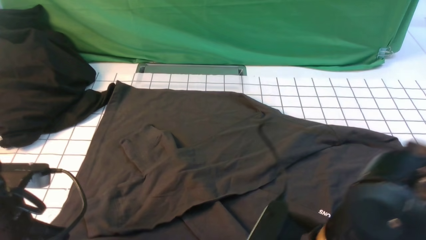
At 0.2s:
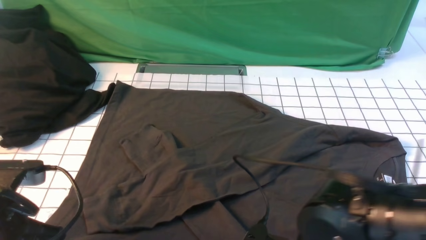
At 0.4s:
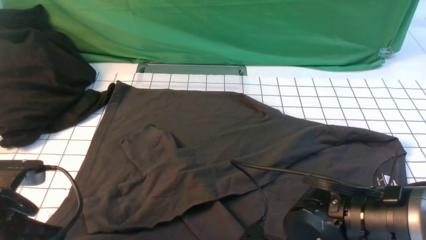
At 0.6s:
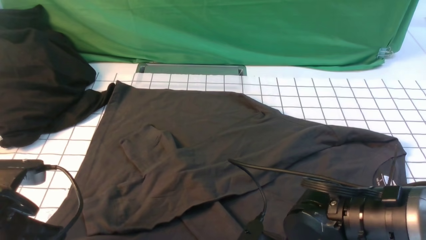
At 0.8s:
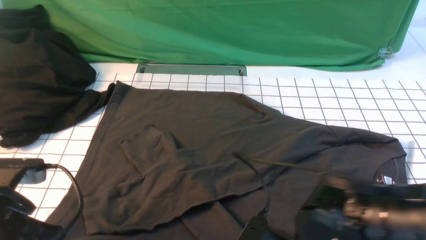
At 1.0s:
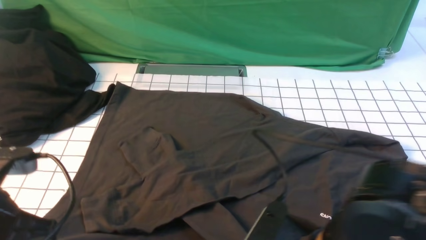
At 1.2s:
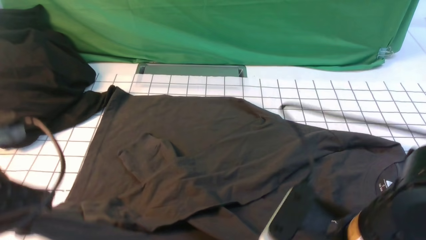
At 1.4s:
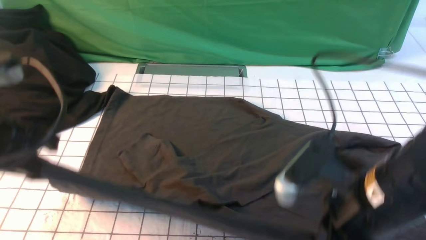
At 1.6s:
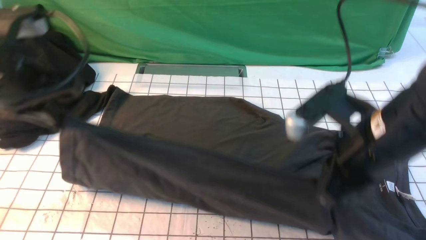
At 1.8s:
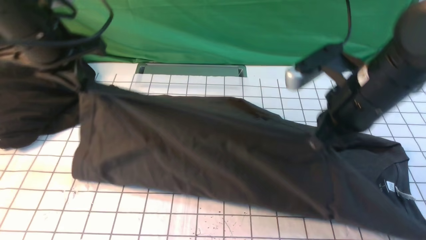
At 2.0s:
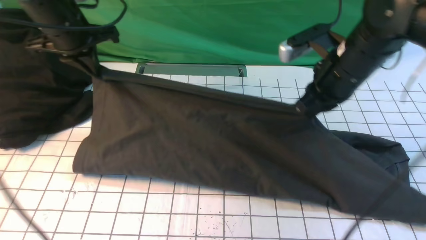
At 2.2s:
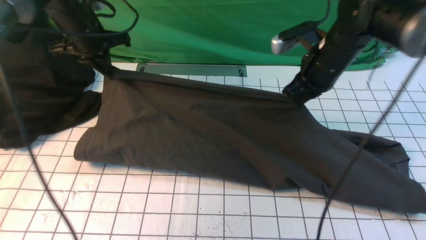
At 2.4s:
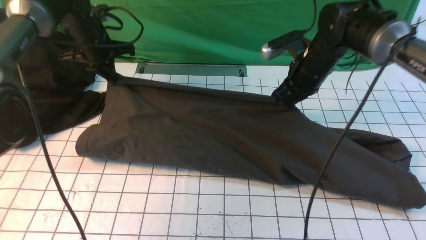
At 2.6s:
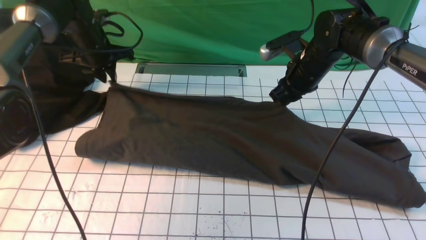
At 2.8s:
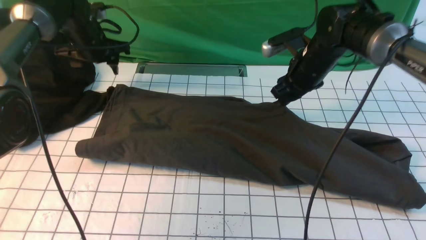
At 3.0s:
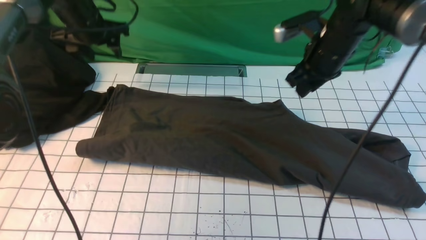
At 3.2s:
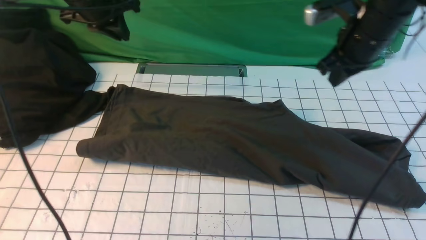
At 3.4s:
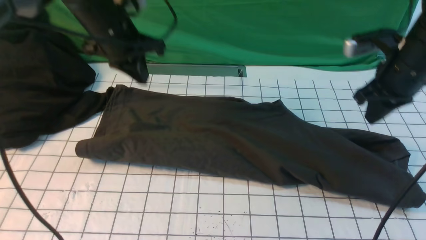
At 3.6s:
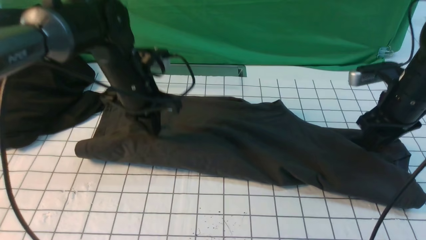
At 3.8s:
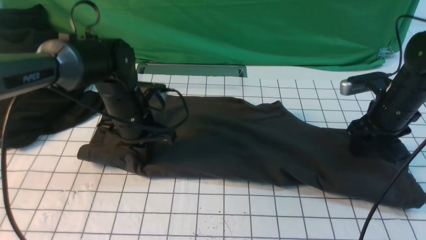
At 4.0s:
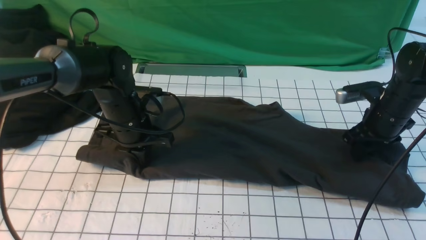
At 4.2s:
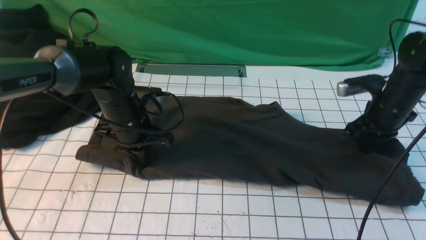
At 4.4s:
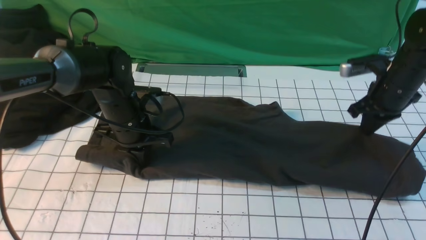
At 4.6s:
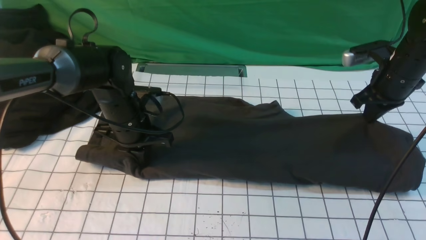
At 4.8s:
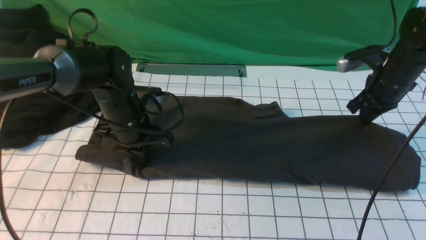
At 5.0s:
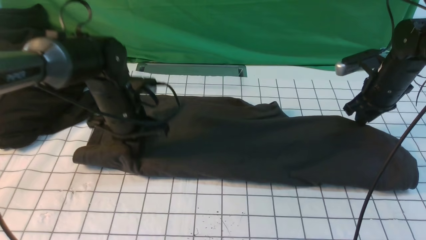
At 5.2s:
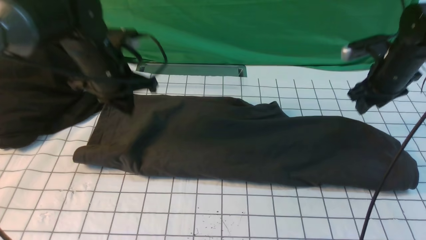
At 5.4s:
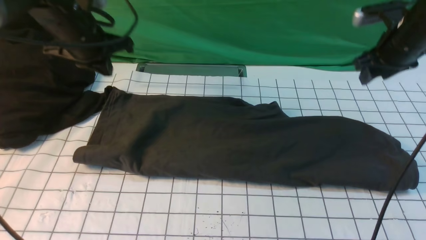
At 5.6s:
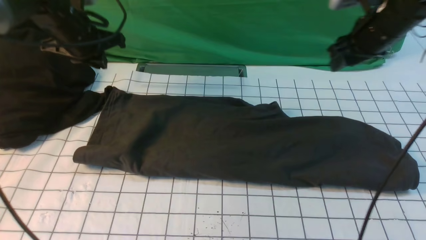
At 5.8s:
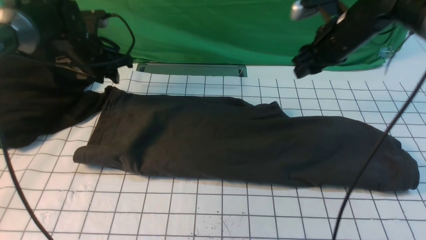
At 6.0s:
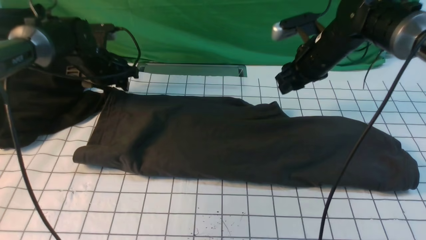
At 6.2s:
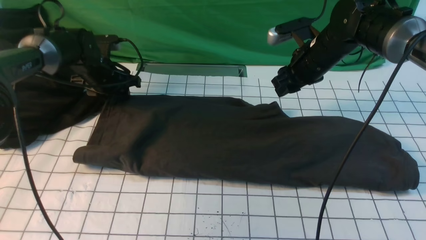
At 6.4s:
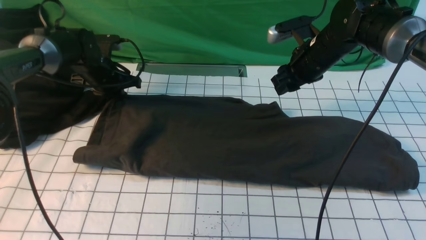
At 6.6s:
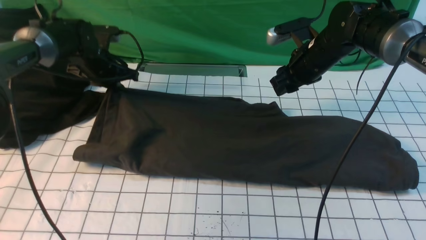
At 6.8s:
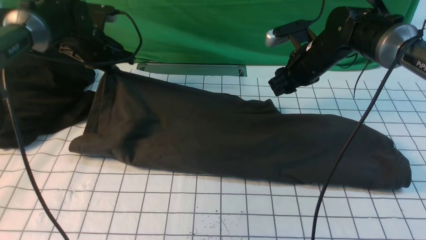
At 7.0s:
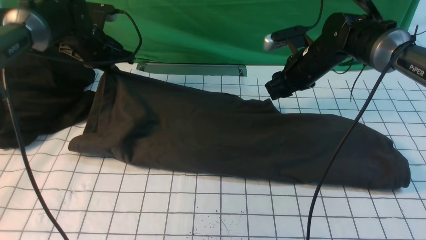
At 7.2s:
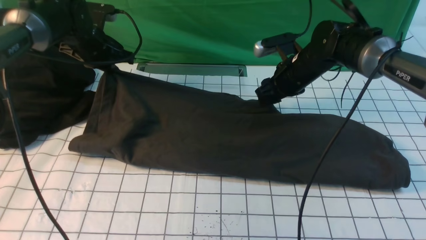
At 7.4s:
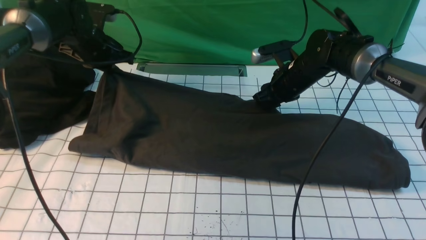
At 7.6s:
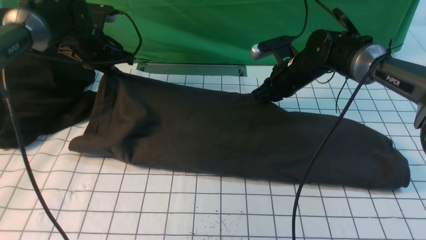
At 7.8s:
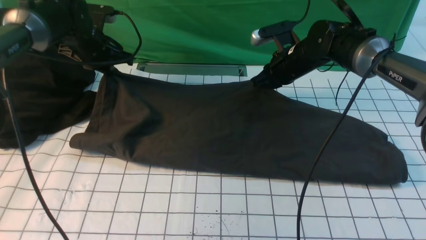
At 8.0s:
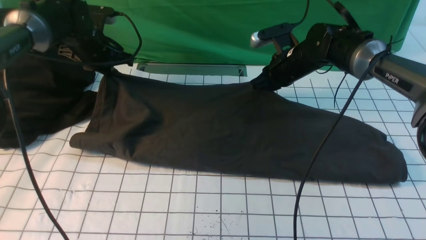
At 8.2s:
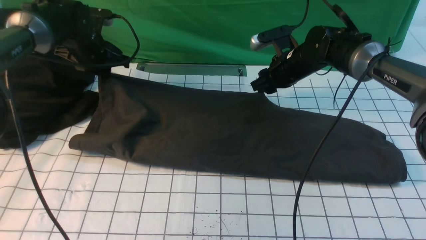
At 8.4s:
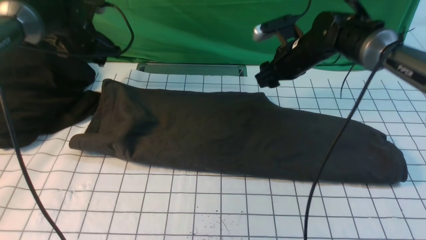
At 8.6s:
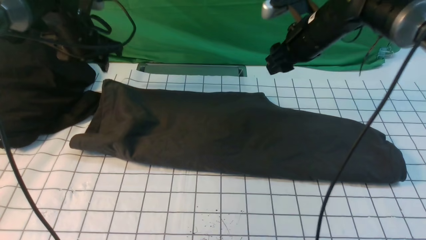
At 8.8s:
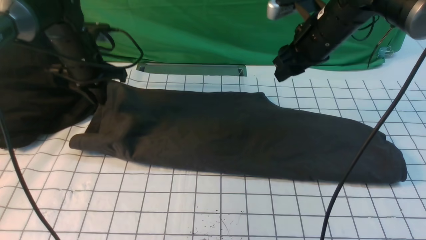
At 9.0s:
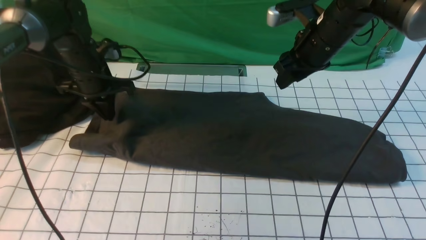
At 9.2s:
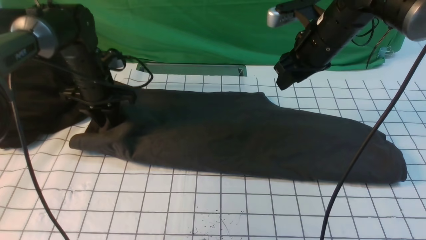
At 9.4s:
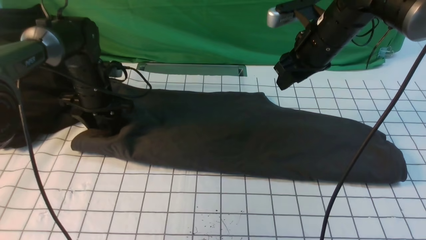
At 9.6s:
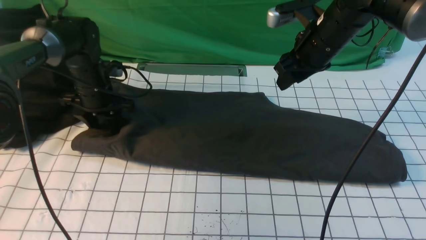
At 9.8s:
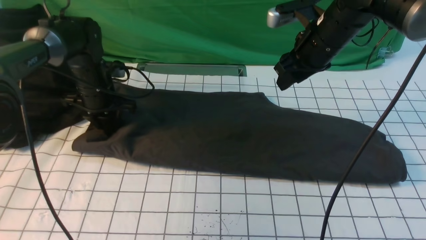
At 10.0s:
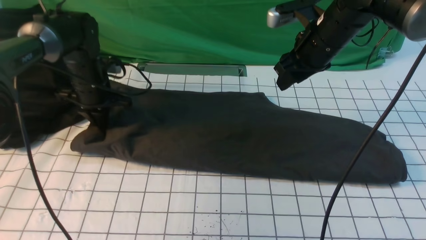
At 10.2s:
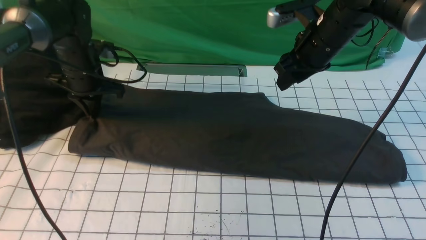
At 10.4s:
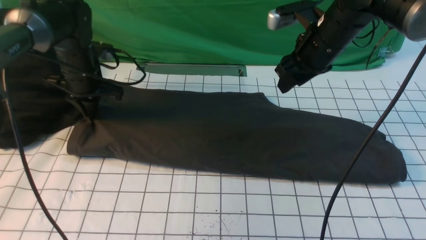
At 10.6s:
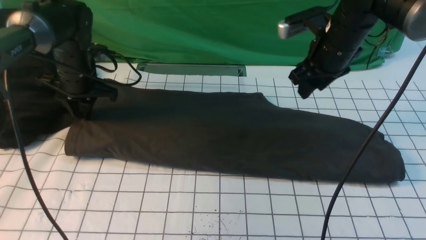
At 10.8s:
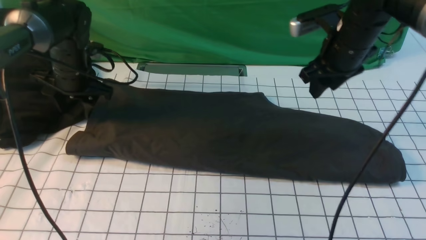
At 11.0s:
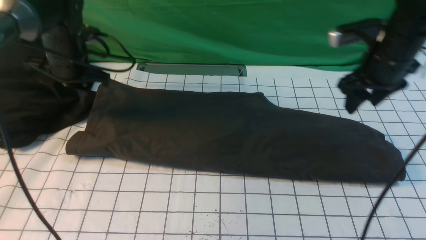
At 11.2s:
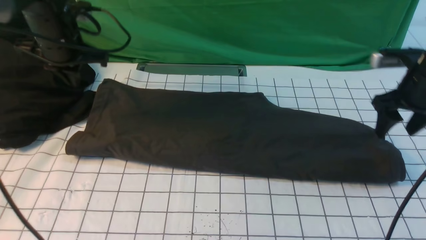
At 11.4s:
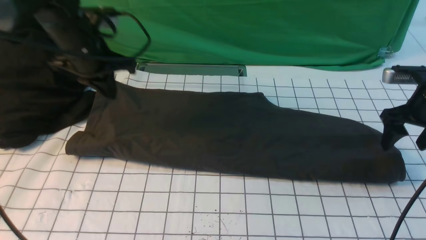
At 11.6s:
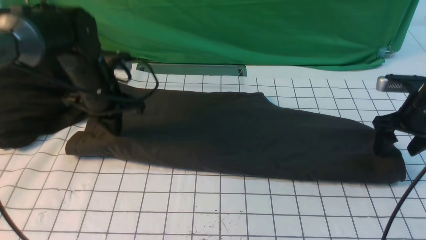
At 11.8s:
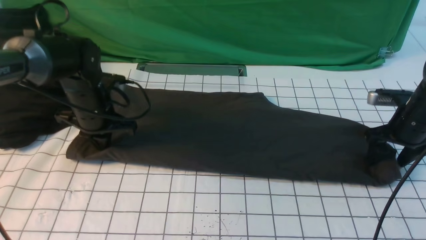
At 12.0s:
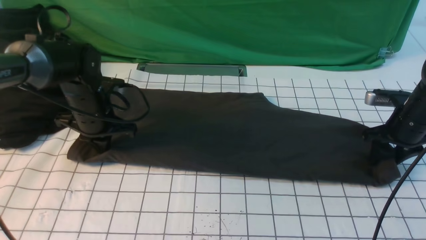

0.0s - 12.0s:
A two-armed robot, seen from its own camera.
Step, 0.8s - 2.6s: use both arms to drag the lower edge of the fabric forward and fold it over the upper edge.
0.0s - 1.6s: The left gripper shifts approximately 15 cm upward and forward. Meanwhile the right gripper shifts roughly 15 cm forward and upward, and closes up.
1.6s - 3.0s: The two grippers go roughly 20 cm forward. The left gripper opens up.
3.0s - 4.4s: The right gripper goes approximately 10 cm to the right and downward, and closes, while the left gripper moves backward, downward and to the right, about 20 cm, and closes its fingers.
4.4s - 6.0s: The left gripper goes roughly 15 cm forward and to the left, and opens up; the right gripper shifts roughly 10 cm to the left, and opens its fingers.
6.0s - 7.6s: The right gripper is displaced downward by some 5 cm, and closes its fingers. The left gripper closes up.
7.6s - 9.0s: The right gripper goes some 10 cm upward and backward, and opens, while the left gripper shifts by some 5 cm, and opens, then closes once more.
9.0s - 10.4s: The left gripper opens and closes again.
10.4s - 12.0s: The left gripper is displaced backward by approximately 5 cm, goes upward and returns, some 5 cm each way, and opens, then closes again. Meanwhile the right gripper is displaced to the right and downward by roughly 20 cm.

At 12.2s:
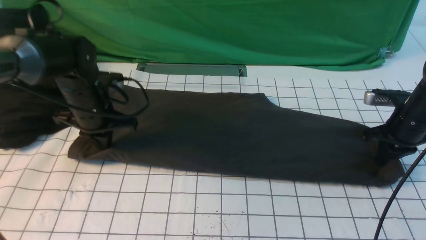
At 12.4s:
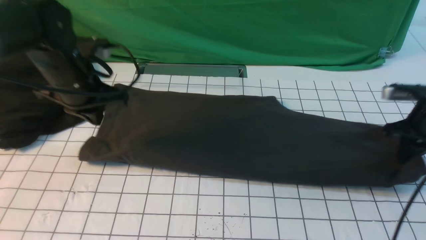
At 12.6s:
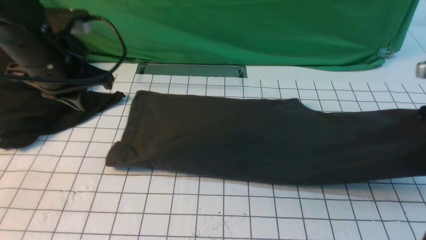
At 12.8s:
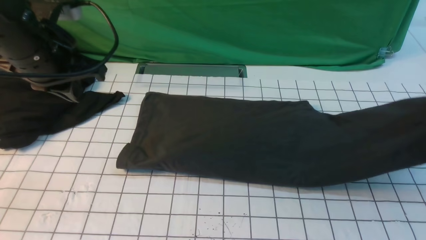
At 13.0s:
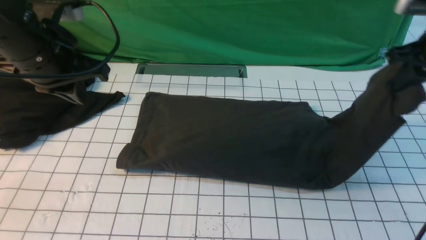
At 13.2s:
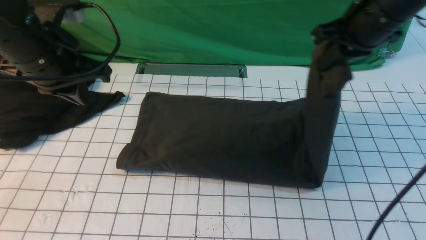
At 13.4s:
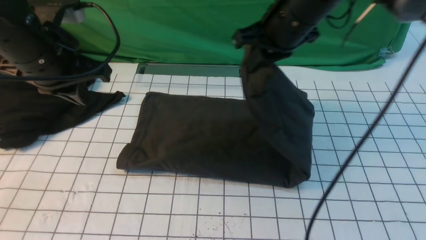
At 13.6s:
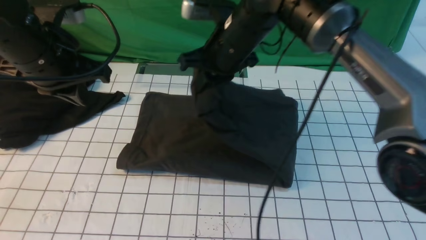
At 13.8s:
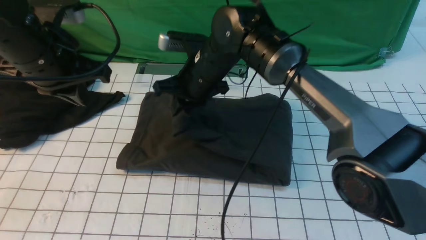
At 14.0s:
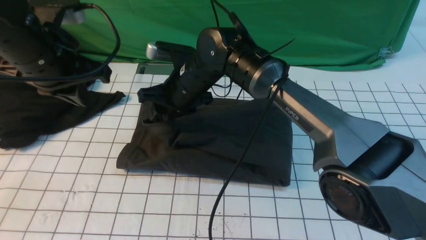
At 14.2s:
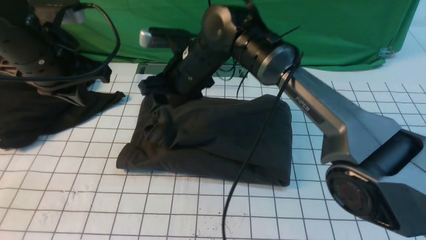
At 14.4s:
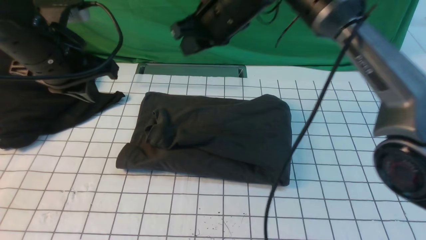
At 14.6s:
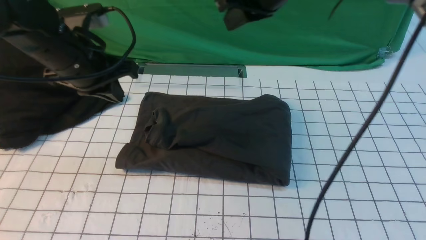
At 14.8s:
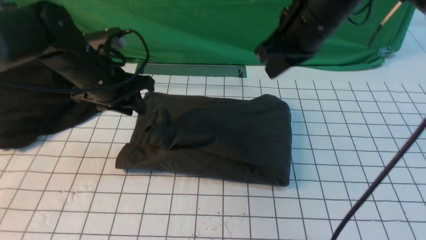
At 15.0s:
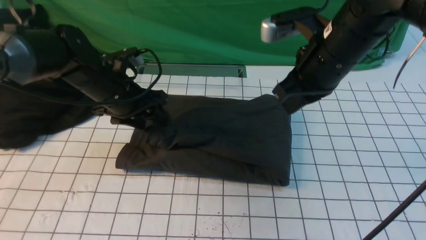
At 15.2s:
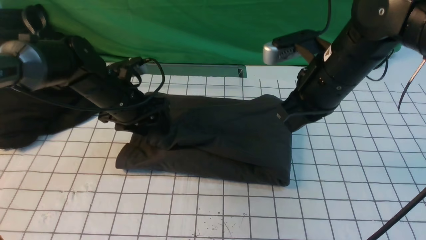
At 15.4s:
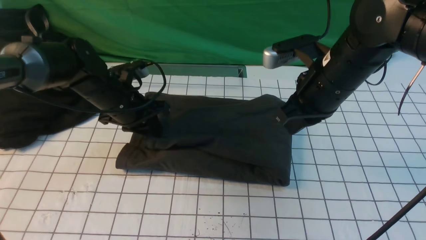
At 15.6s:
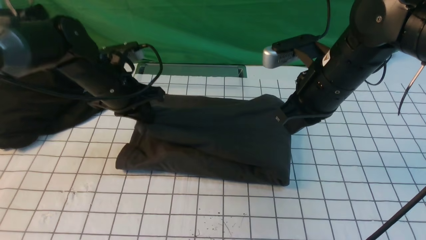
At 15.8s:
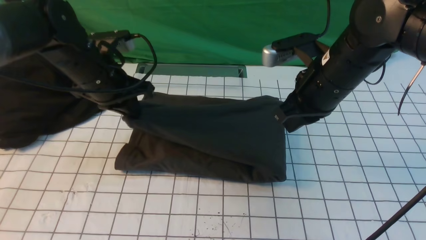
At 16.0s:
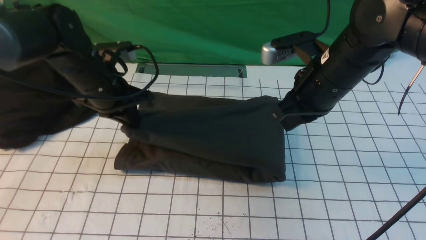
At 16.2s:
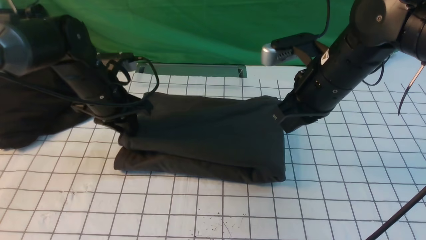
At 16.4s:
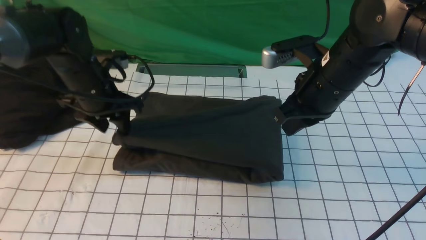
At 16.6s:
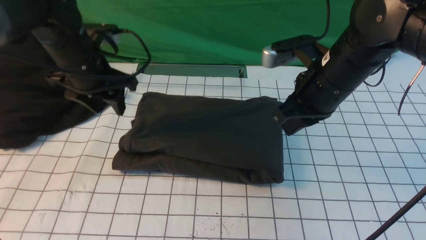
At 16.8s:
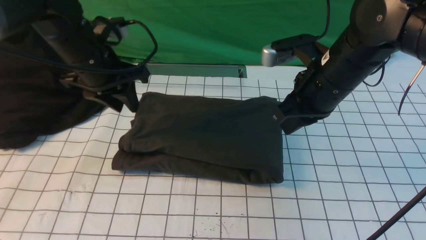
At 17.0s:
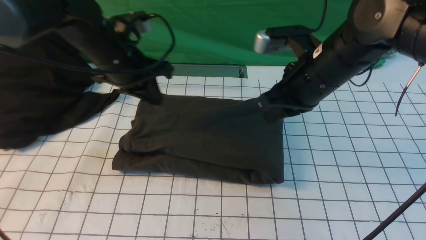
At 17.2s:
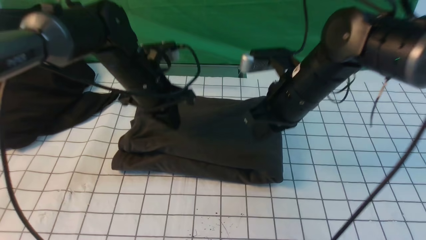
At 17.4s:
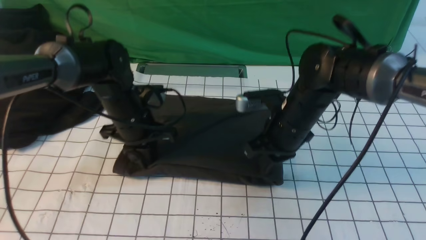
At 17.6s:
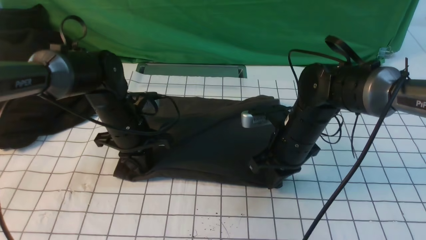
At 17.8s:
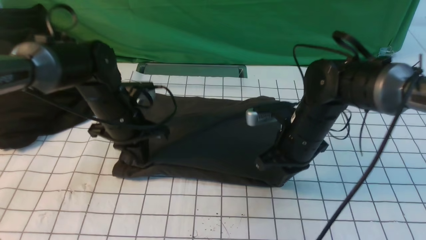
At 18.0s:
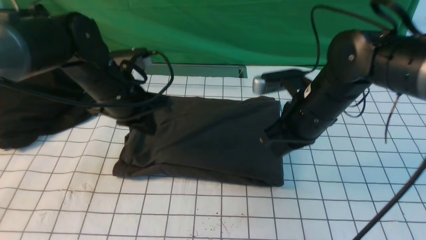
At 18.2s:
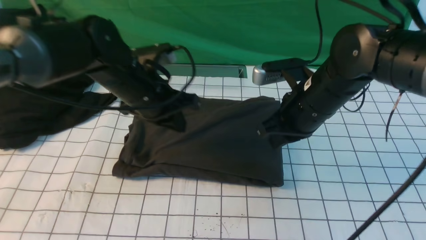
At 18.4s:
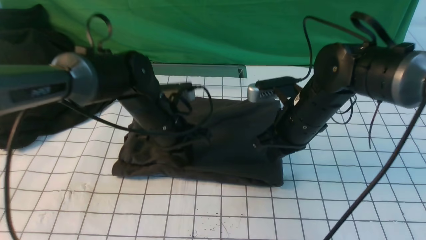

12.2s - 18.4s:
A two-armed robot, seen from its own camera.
Step, 12.4s - 14.2s: use the right arm to drag the right edge of the fabric to the left and folds it over the left edge.
12.2s - 13.8s: The right gripper heads to the left, covering approximately 40 cm; the left gripper goes about 15 cm upward and backward.
13.8s - 15.4s: The left gripper travels downward and forward by roughly 15 cm, and opens and closes again. The right gripper is displaced to the right and backward by approximately 20 cm, and opens, then closes again.
15.4s - 16.8s: The left gripper travels upward by about 10 cm.
16.8s - 18.4s: The right gripper is displaced downward by some 5 cm. The left gripper goes up and down, roughly 10 cm each way, reversing 2 times, and closes up.
